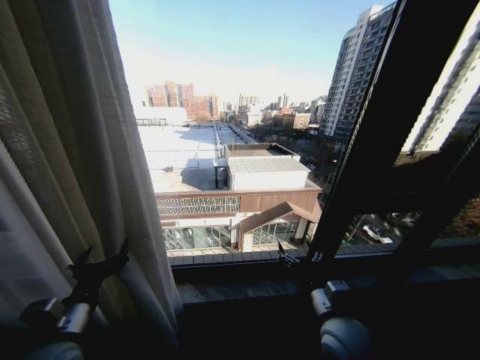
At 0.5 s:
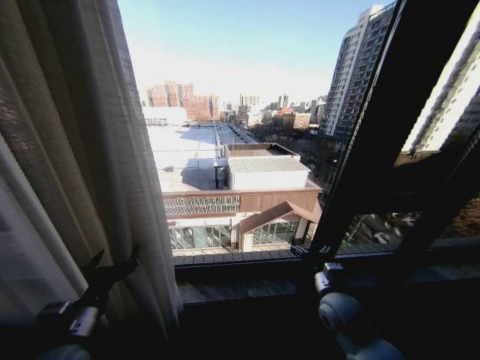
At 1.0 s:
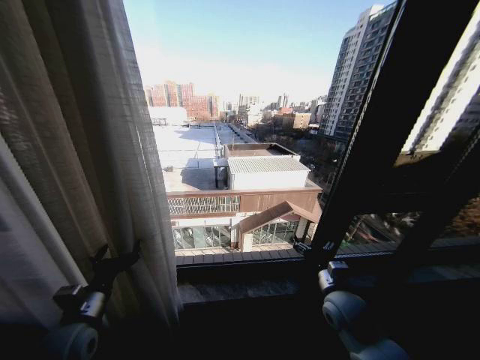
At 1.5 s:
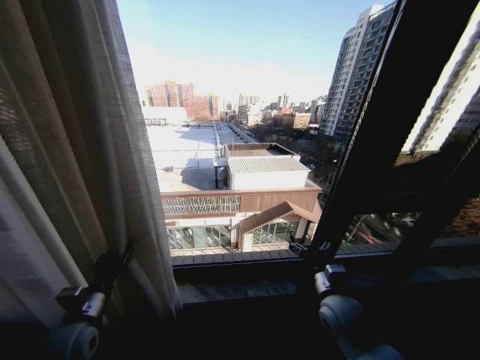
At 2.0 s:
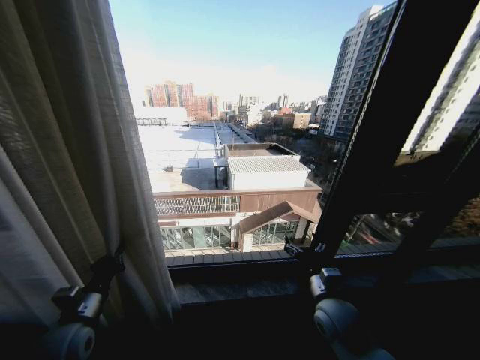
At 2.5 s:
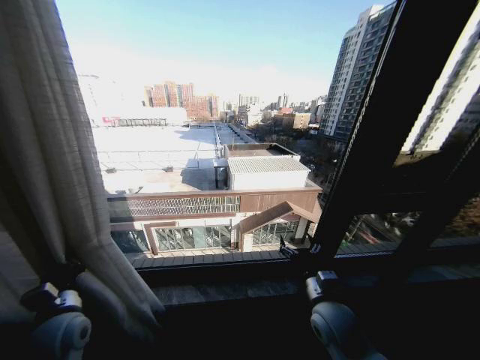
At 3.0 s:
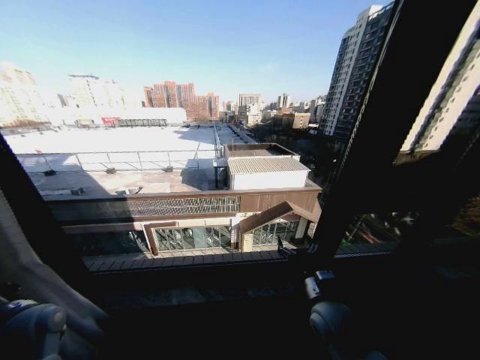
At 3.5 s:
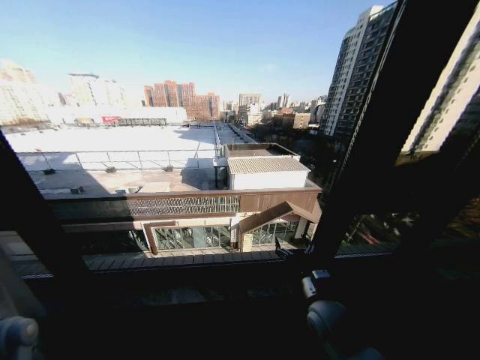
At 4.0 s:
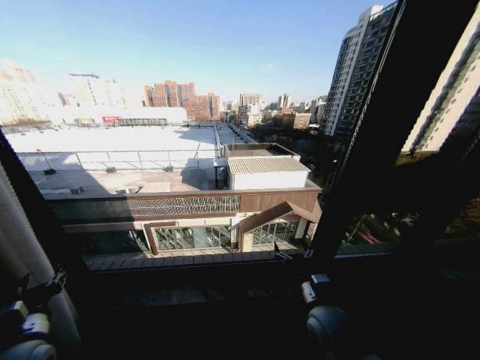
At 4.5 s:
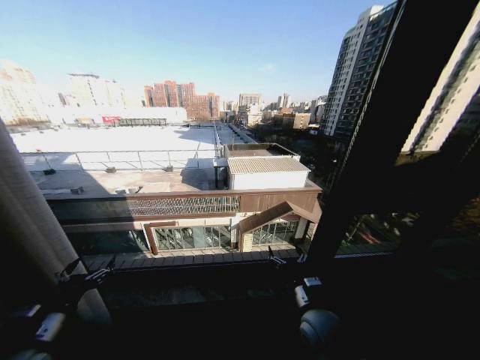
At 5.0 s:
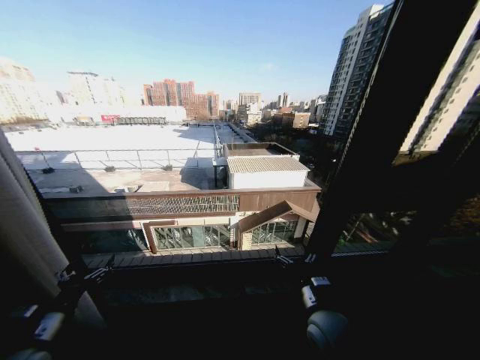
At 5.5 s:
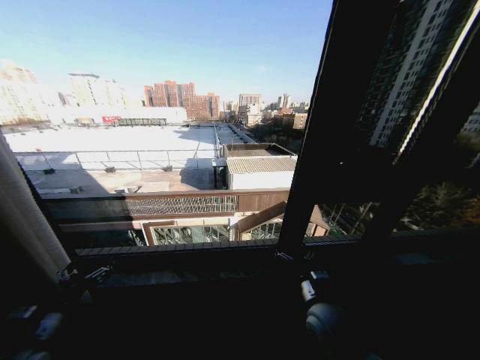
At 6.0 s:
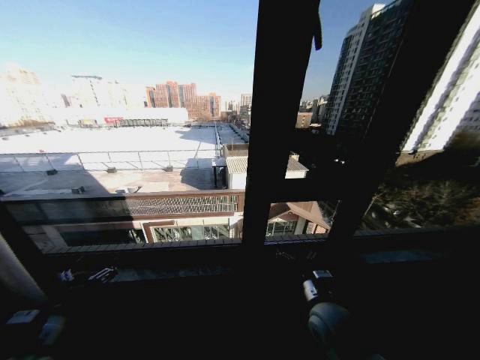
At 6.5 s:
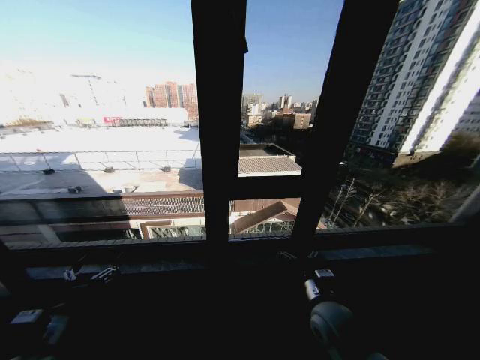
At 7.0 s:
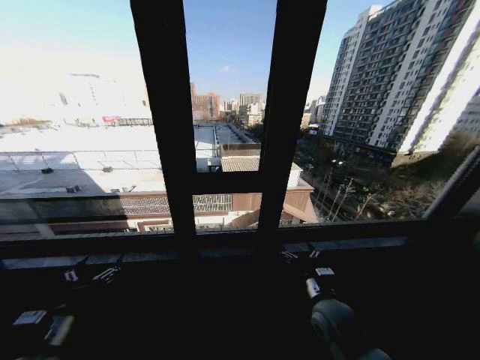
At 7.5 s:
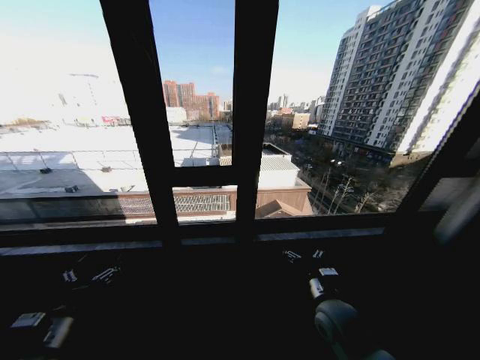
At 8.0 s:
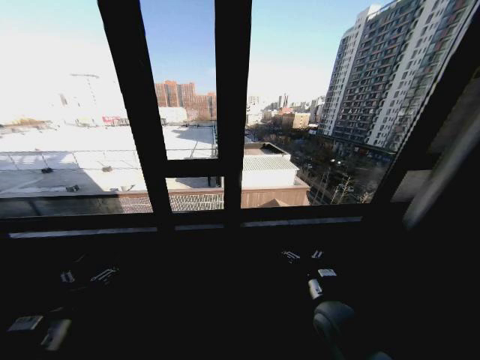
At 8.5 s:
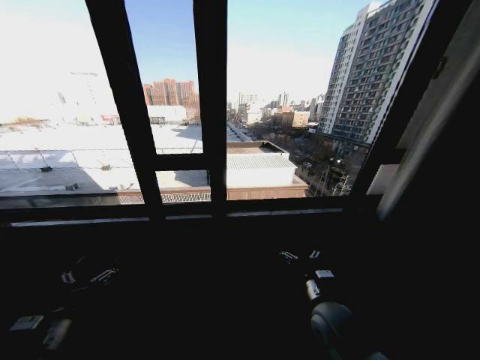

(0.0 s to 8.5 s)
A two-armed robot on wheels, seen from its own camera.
Task of the whole recording: Open the curtains by pulling them apart, changing their state from closed to fully open.
0.0 s - 2.0 s: The left gripper heads downward, covering about 5 cm, and closes; the right gripper goes roughly 5 cm forward.
2.0 s - 4.0 s: The left gripper travels to the left and back again, some 15 cm each way, and opens its fingers.
4.0 s - 6.5 s: The left gripper opens.
